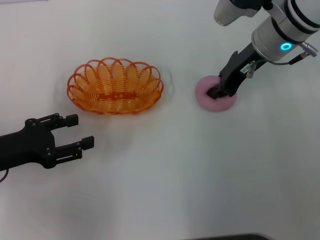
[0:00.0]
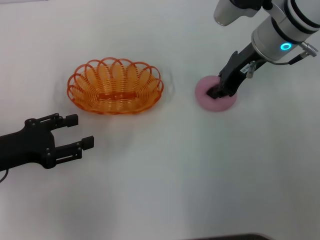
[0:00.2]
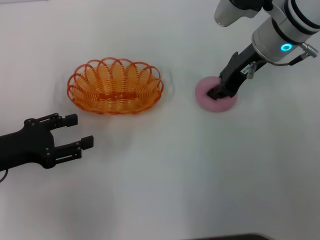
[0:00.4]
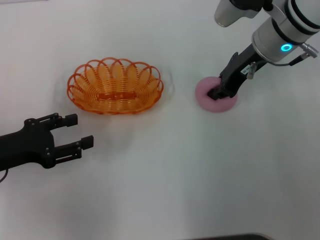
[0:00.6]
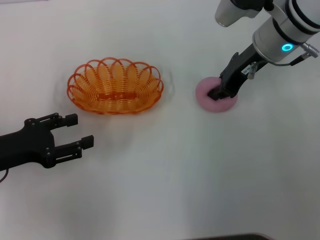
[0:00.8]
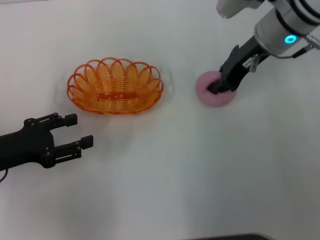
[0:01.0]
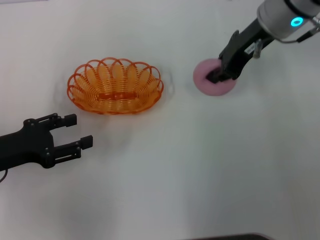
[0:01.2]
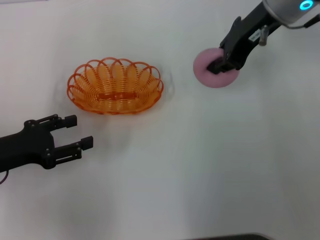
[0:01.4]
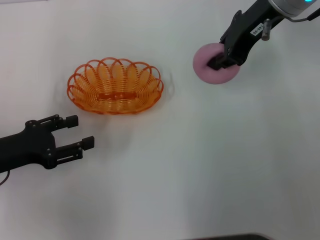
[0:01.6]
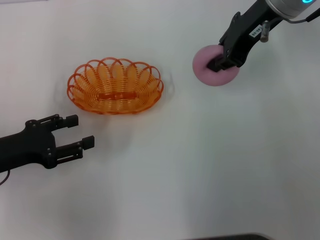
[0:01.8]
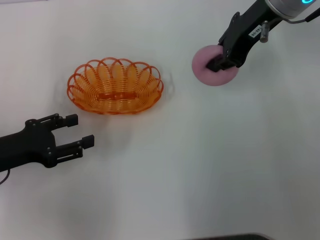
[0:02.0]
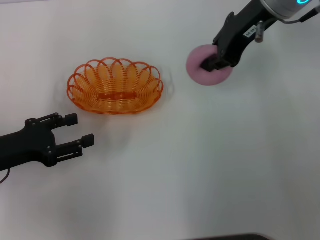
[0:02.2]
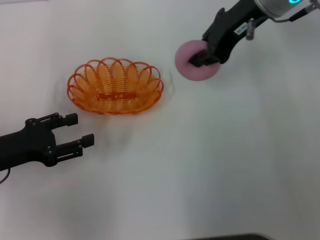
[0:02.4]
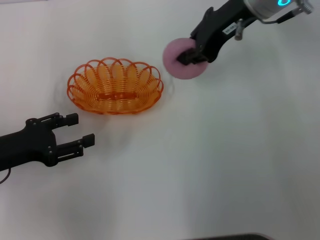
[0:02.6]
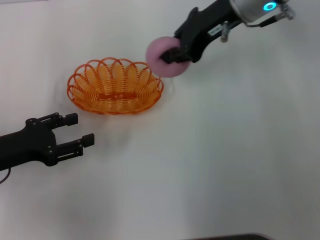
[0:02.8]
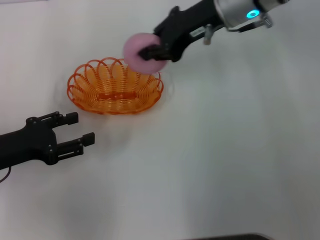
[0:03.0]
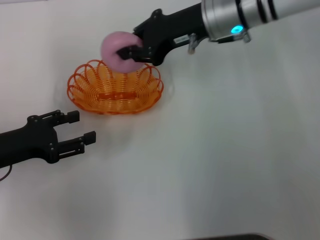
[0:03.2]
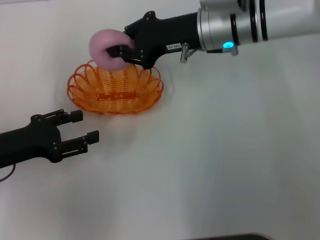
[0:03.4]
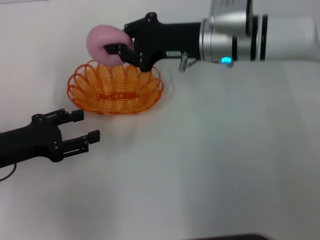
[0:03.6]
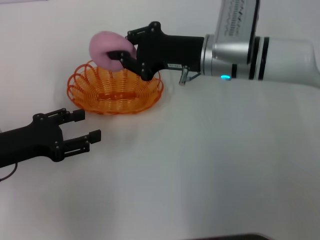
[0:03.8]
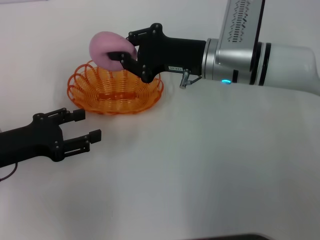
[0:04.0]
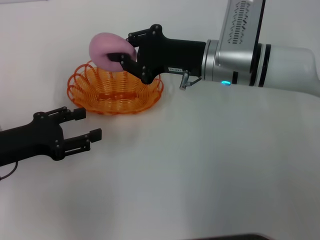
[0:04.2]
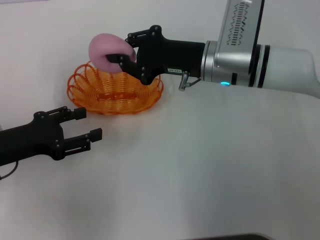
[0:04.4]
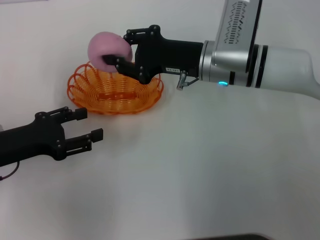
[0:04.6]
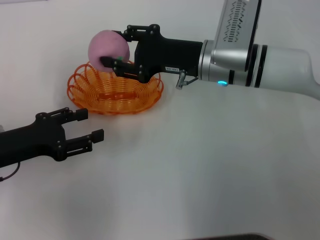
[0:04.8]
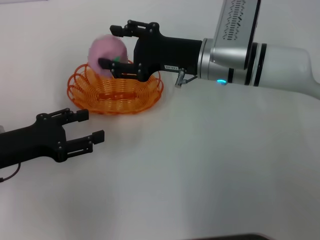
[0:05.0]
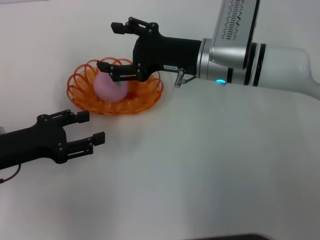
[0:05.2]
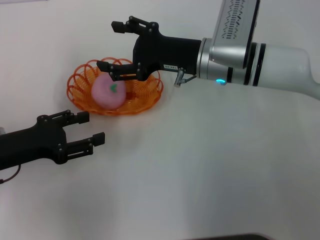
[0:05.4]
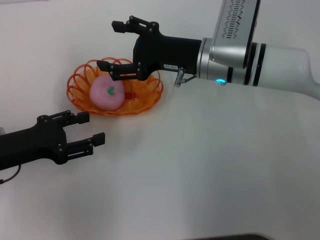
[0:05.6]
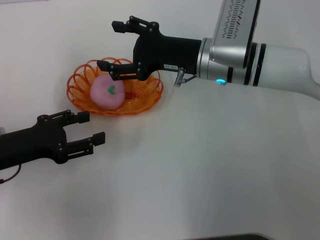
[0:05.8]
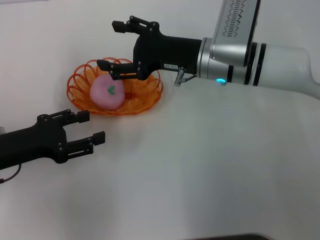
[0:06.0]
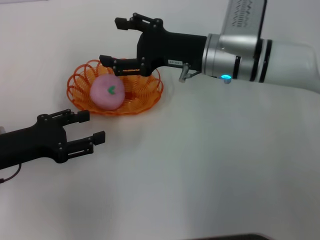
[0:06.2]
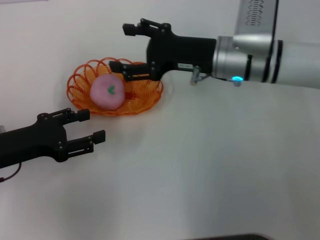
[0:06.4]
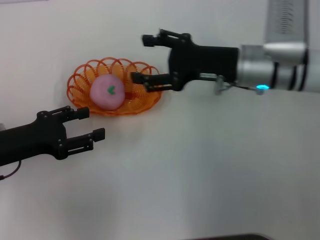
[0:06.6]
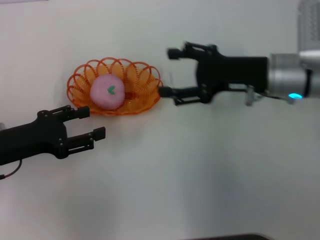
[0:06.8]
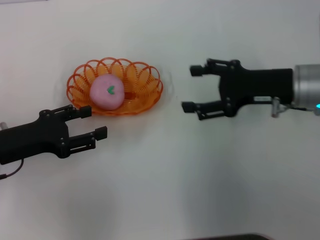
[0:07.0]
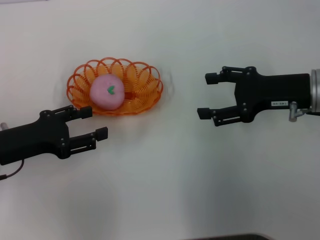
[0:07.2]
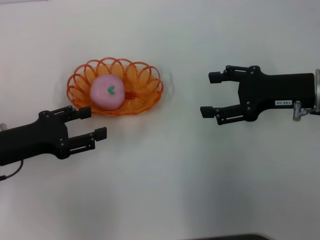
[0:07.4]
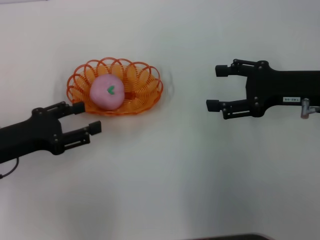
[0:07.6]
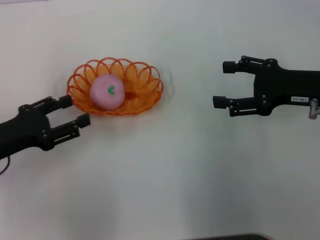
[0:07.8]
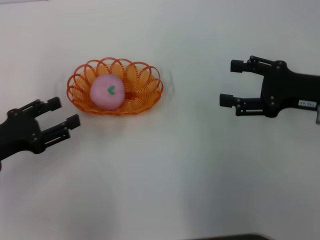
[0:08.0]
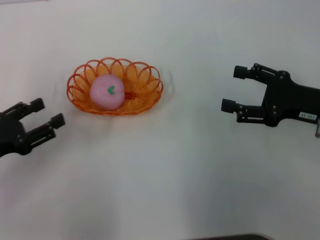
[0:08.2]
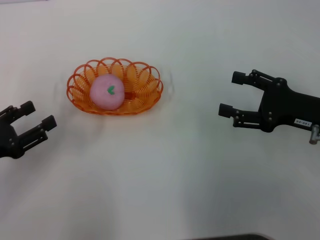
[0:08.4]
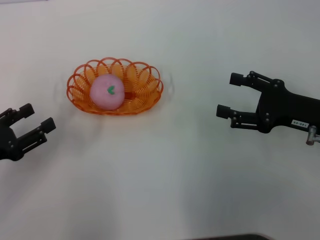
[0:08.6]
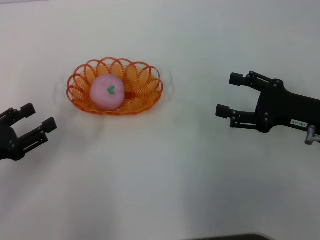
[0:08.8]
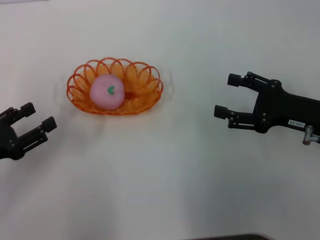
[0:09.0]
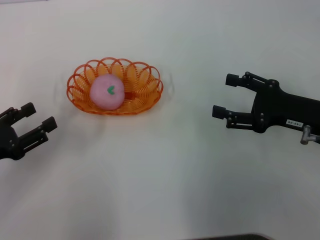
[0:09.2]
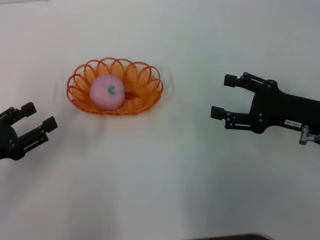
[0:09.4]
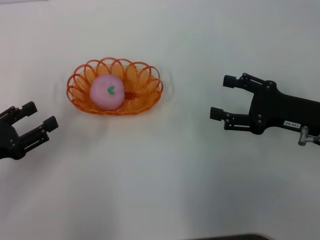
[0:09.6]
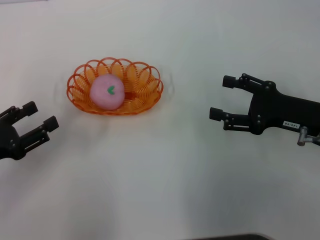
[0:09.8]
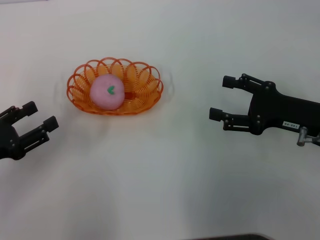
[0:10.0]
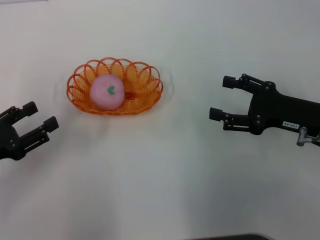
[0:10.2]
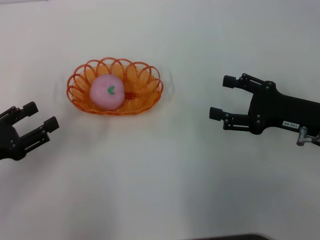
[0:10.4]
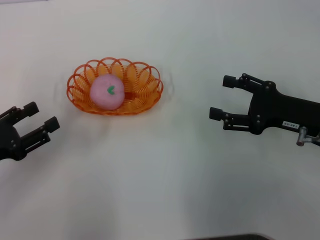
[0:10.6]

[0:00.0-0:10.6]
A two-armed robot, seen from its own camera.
Step, 0:01.4 to 0:05.6: Place the peach into the basket with the right gripper.
0:00.0 to 0:01.6: The right gripper shifts roughly 10 cm upward.
0:01.6 to 0:03.0: The right gripper ends up approximately 5 cm from where it was.
0:03.0 to 0:04.6: The right gripper moves downward, some 10 cm.
0:04.6 to 0:06.0: The right gripper opens its fingers.
0:06.0 to 0:07.6: The right gripper moves to the right and backward, roughly 15 cm.
0:07.6 to 0:09.0: The left gripper shifts by about 5 cm. Meanwhile the right gripper ends up about 5 cm from where it was.
0:09.0 to 0:10.6: Both grippers stay about where they are.
